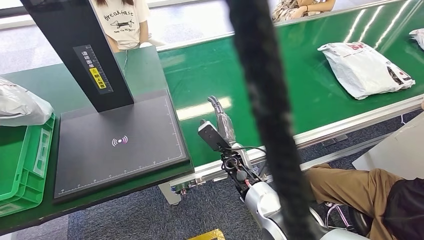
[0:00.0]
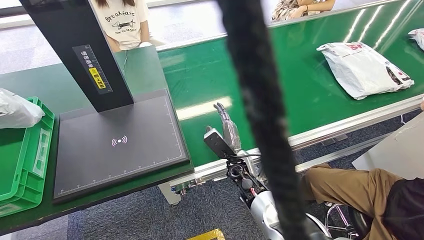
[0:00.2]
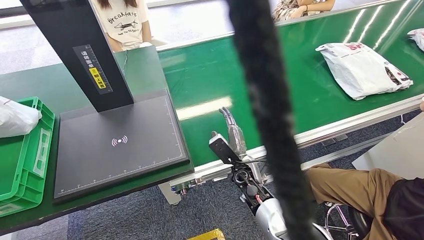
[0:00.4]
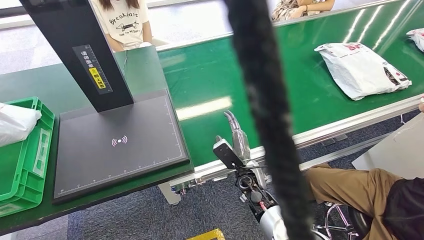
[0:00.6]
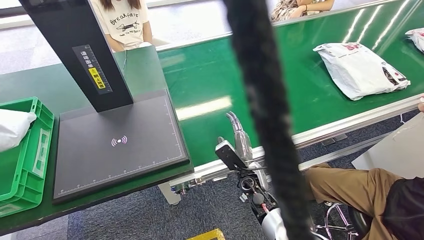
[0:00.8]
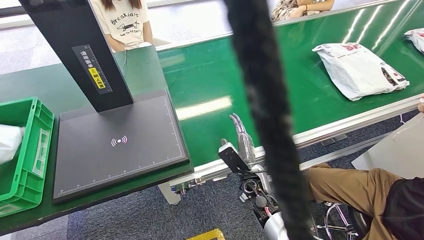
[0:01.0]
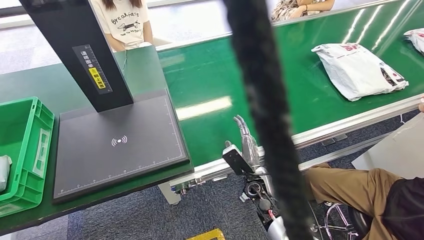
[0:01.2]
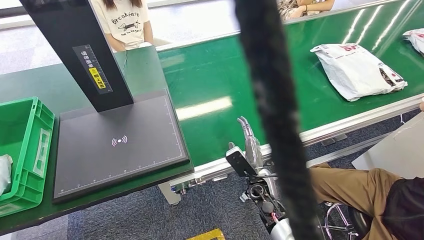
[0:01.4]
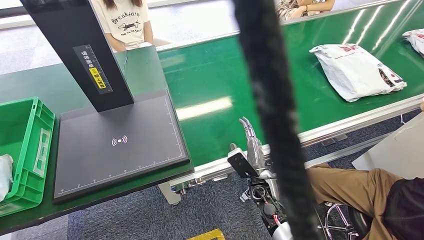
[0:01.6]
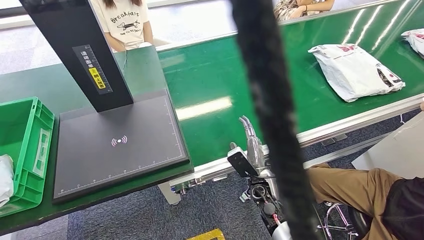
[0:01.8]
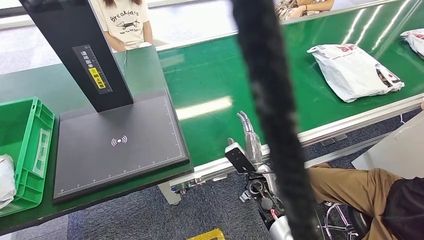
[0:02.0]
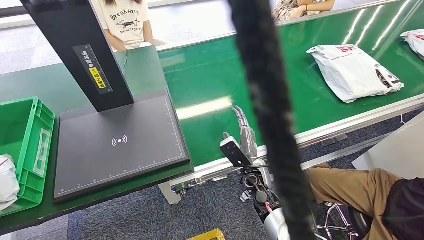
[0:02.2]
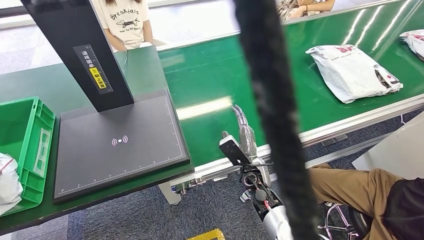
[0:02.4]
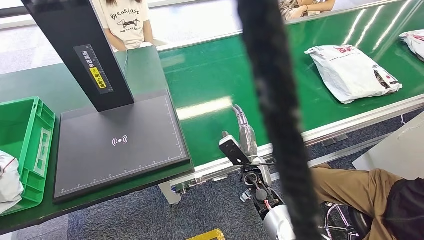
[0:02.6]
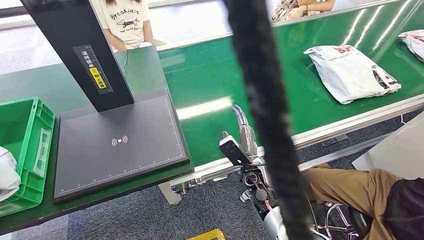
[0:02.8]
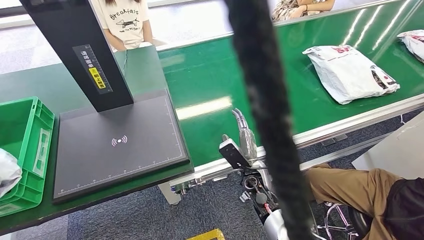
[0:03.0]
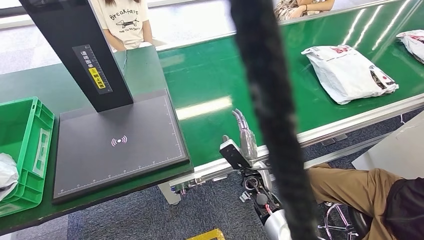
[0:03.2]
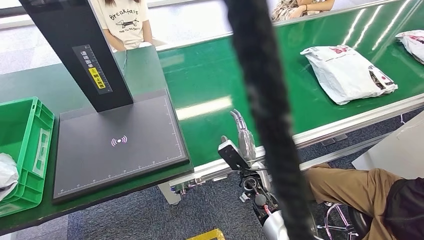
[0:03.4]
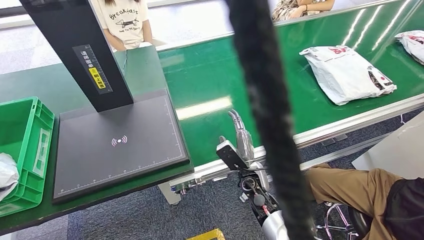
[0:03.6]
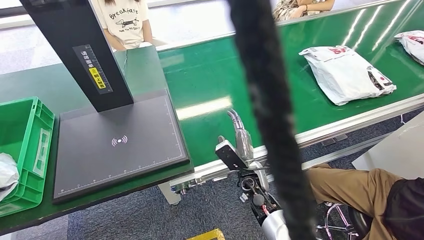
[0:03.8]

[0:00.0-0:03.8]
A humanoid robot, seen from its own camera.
Step, 0:00.0 to 0:03.8: Place the package into the parcel locker.
0:00.0 to 0:01.2: The right hand is displaced backward by approximately 10 cm. The left hand shifts roughly 25 cm downward, to the left and backward.
0:01.2 to 0:02.6: The left hand moves to the right, about 5 cm.
0:02.6 to 0:03.8: The left hand moves upward, some 25 cm.
